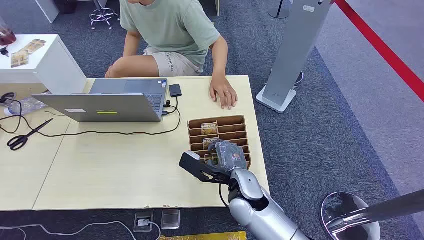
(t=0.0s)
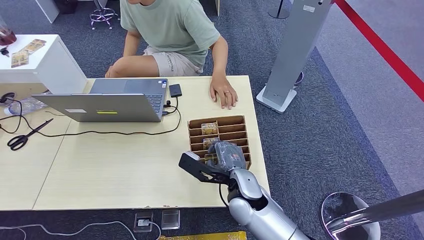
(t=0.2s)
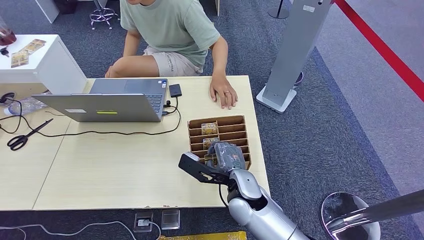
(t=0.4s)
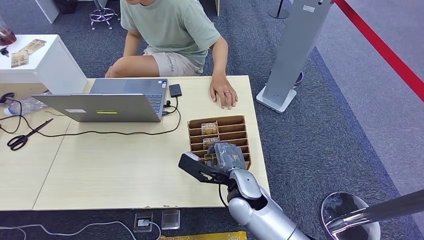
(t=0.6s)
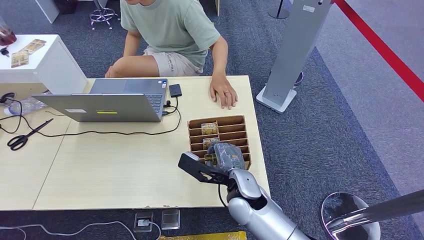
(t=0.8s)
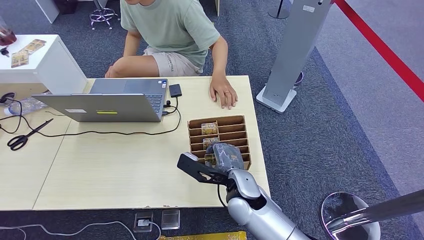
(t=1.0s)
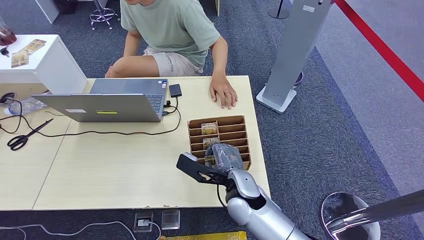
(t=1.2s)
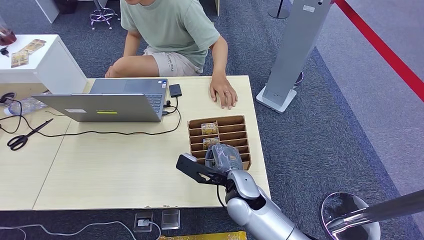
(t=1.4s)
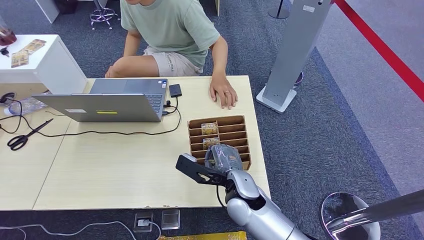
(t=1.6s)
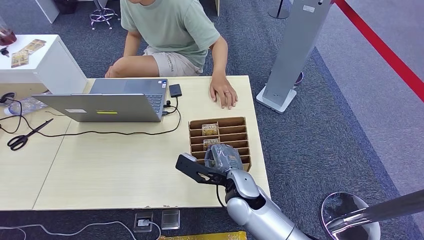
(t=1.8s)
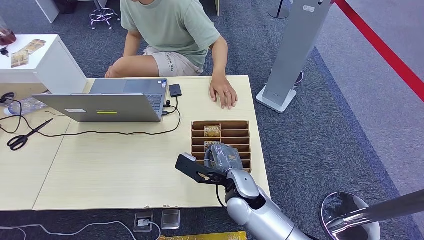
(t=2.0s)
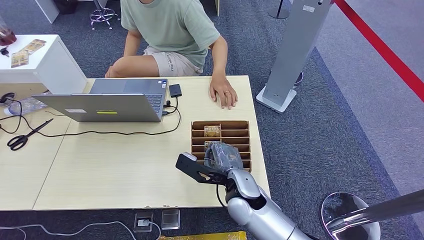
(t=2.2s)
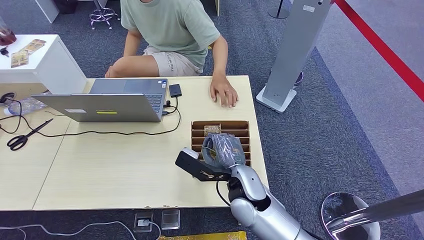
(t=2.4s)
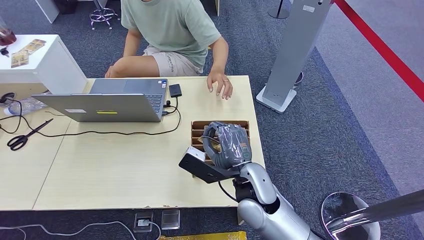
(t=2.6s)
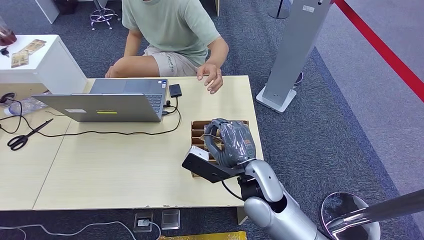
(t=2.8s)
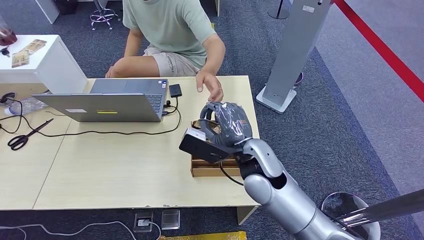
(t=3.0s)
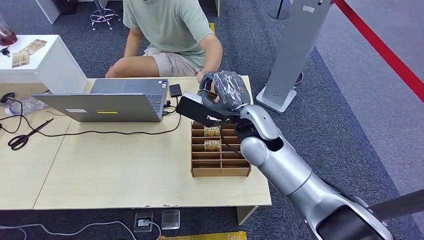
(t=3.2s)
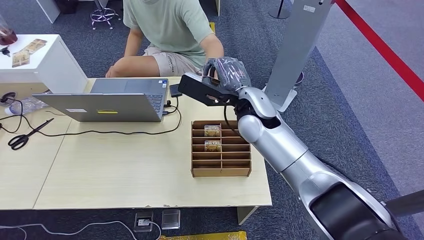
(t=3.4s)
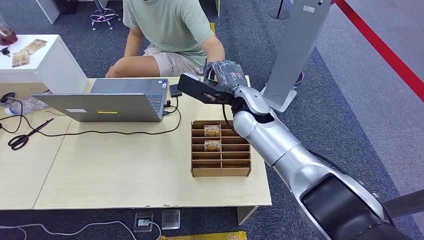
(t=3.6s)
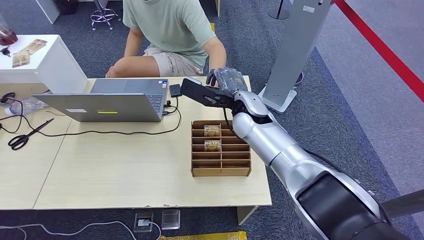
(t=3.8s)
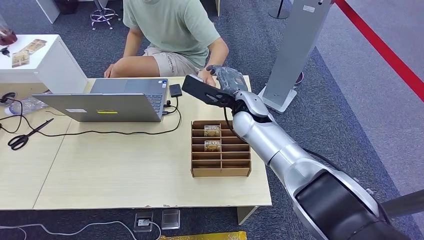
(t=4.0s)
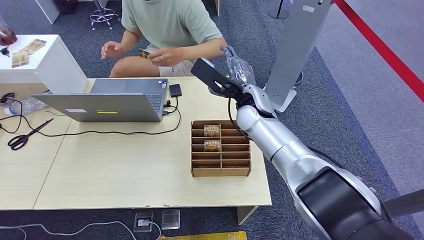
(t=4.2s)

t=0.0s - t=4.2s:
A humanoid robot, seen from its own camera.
Step, t=0.0s - t=2.4s: Pick up the room card from the card holder.
Step, t=3.6s - t=4.2s: Hand the room card to the target.
t=1.4s - t=2.8s: The right hand moves upward, about 10 cm.
t=2.8s - t=4.2s: The right hand goes approximately 15 cm forward and upward.
